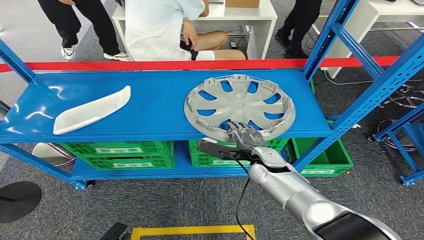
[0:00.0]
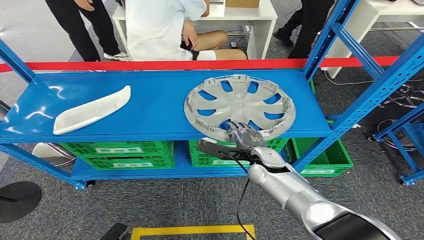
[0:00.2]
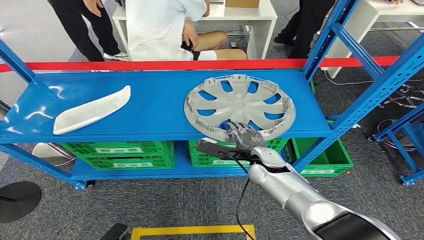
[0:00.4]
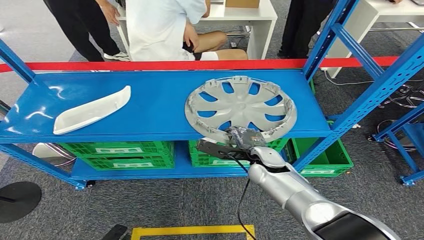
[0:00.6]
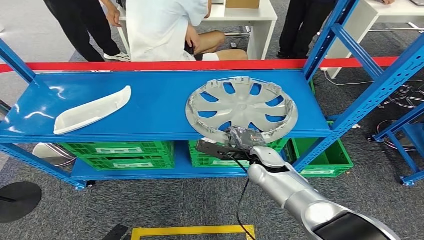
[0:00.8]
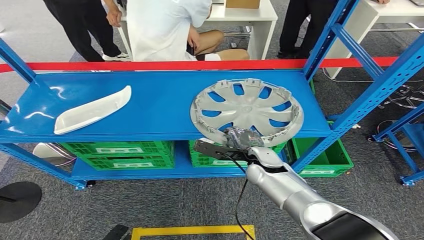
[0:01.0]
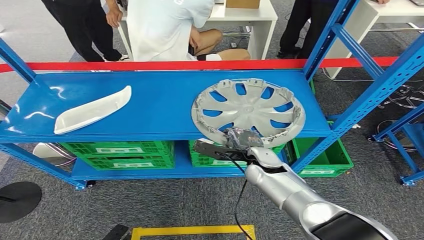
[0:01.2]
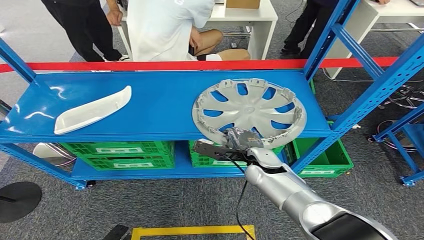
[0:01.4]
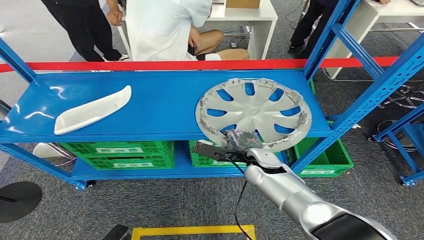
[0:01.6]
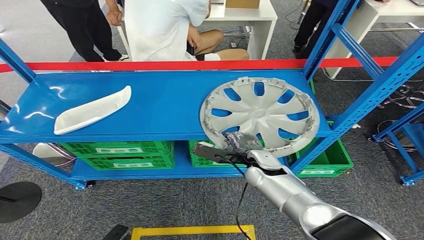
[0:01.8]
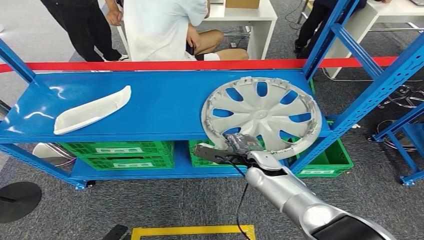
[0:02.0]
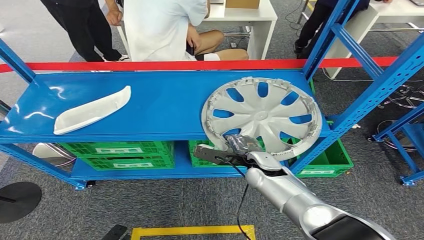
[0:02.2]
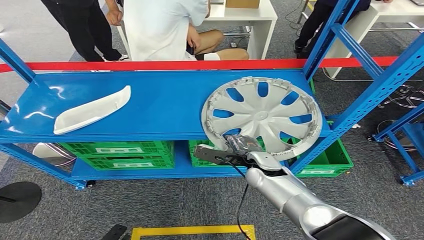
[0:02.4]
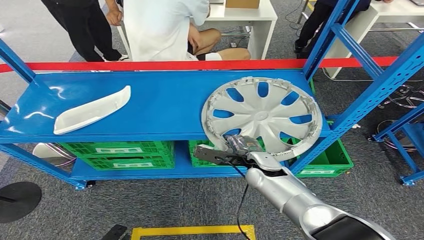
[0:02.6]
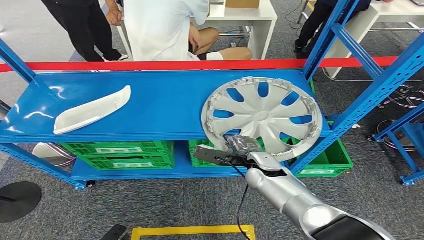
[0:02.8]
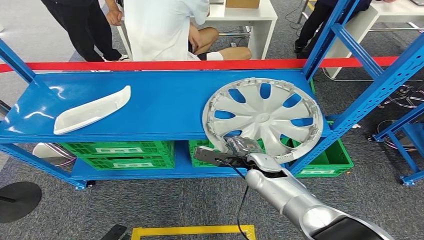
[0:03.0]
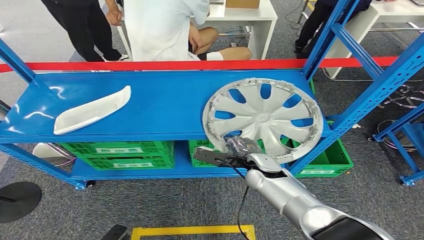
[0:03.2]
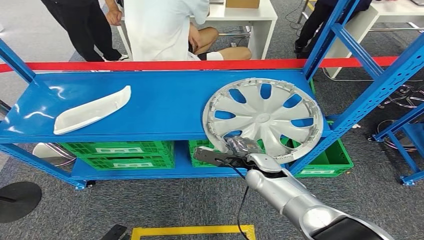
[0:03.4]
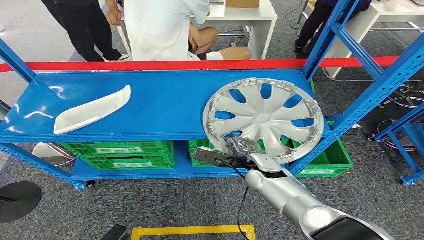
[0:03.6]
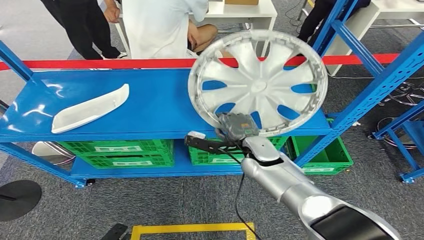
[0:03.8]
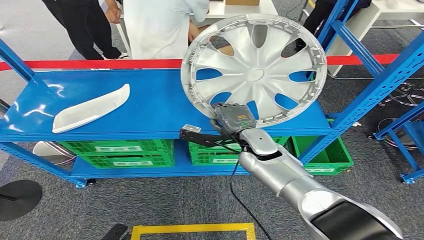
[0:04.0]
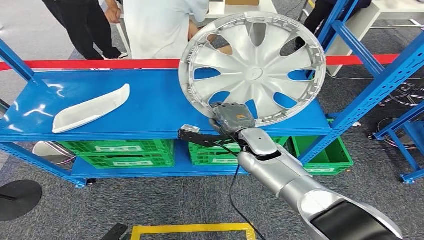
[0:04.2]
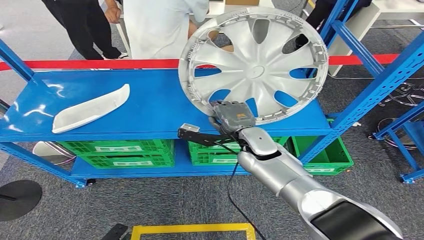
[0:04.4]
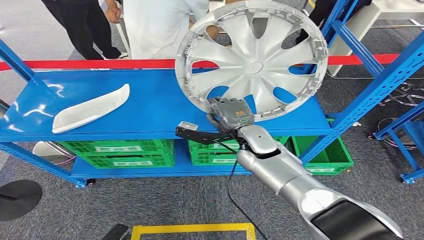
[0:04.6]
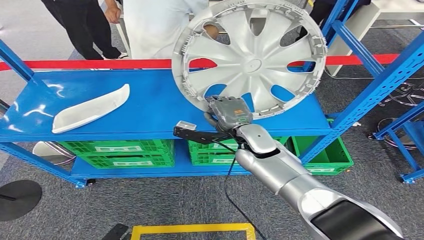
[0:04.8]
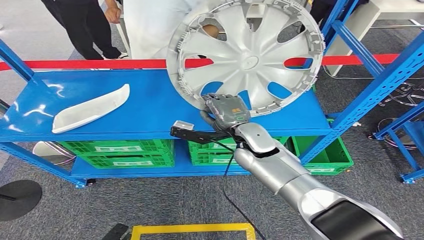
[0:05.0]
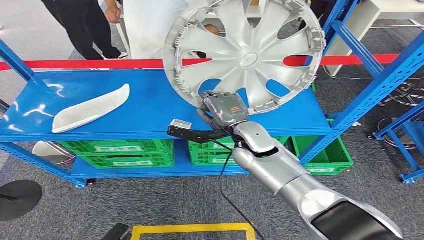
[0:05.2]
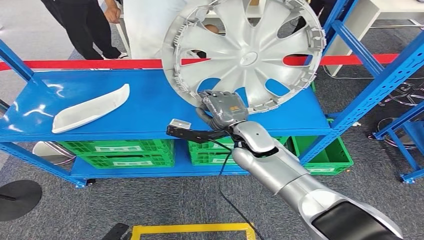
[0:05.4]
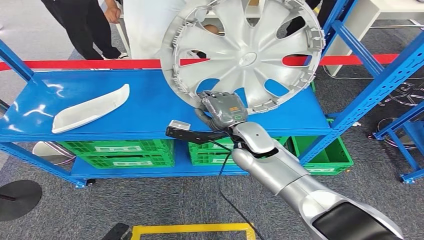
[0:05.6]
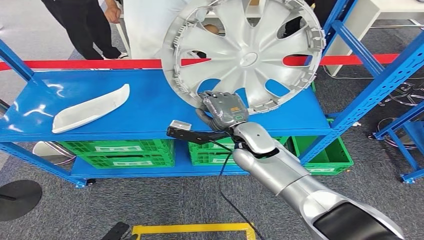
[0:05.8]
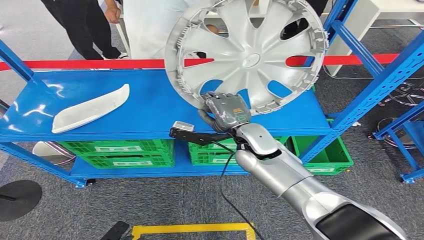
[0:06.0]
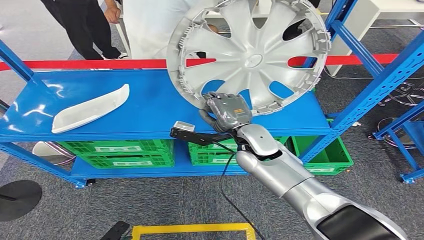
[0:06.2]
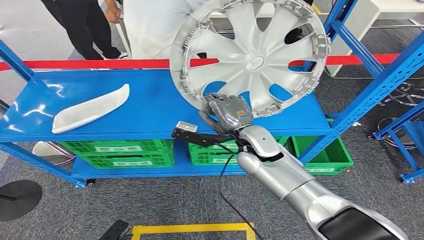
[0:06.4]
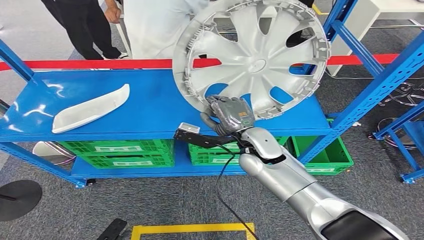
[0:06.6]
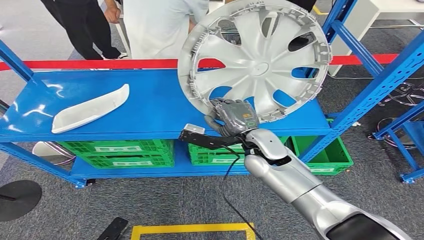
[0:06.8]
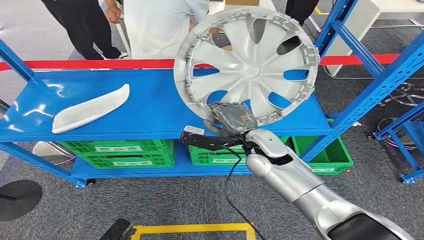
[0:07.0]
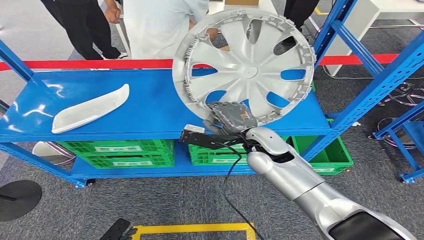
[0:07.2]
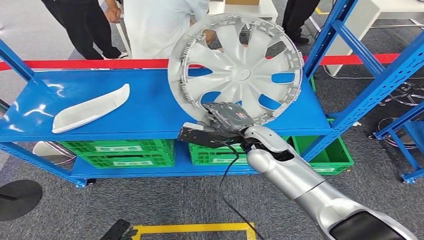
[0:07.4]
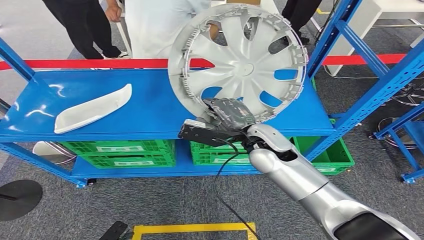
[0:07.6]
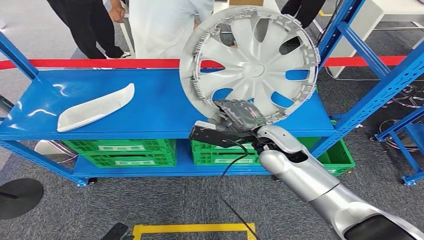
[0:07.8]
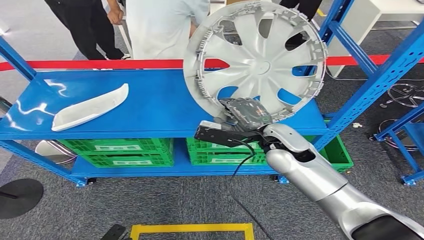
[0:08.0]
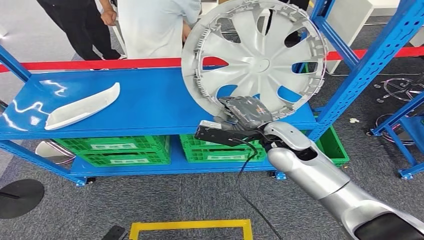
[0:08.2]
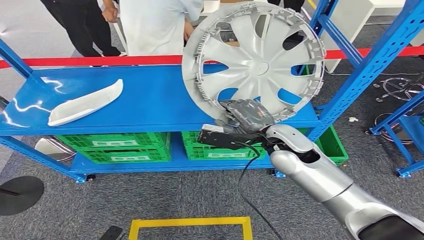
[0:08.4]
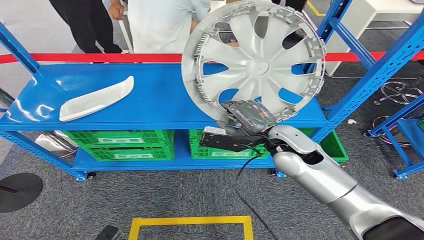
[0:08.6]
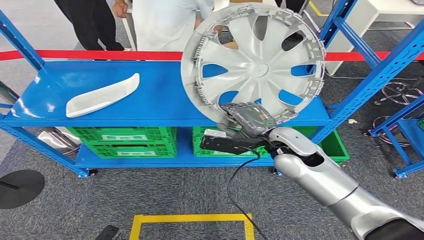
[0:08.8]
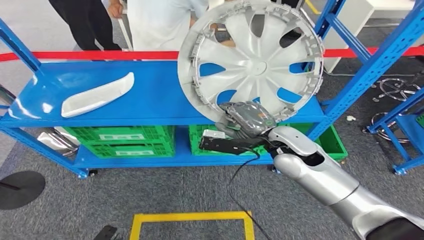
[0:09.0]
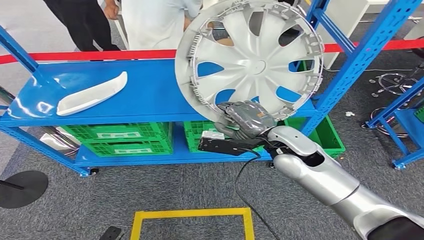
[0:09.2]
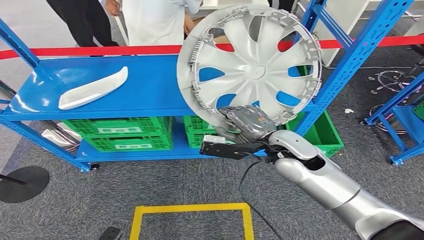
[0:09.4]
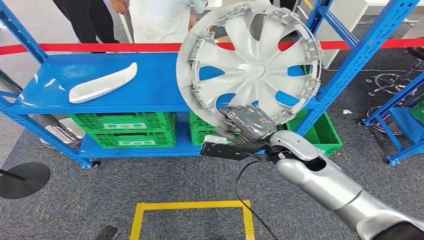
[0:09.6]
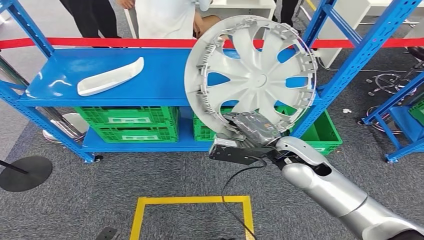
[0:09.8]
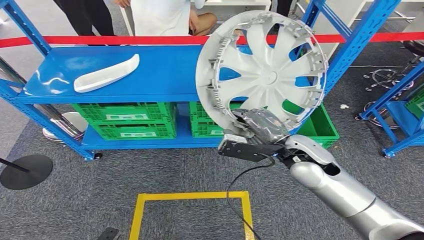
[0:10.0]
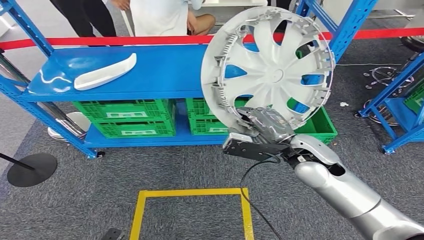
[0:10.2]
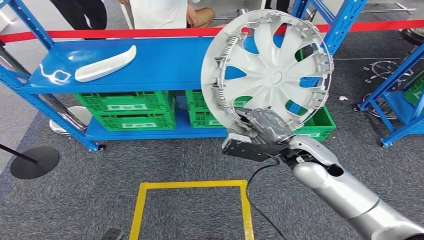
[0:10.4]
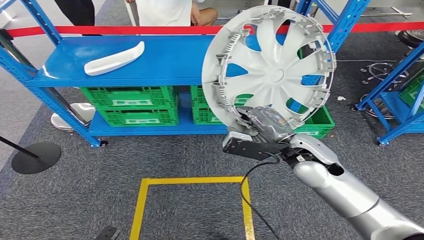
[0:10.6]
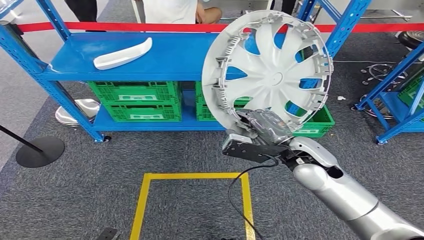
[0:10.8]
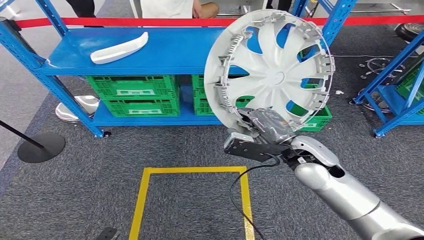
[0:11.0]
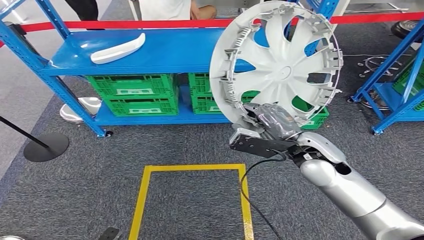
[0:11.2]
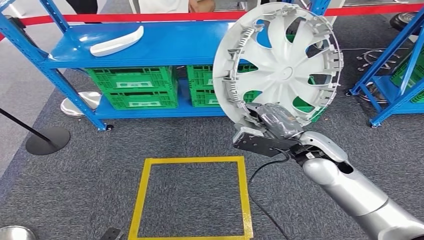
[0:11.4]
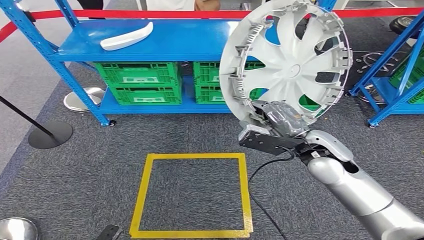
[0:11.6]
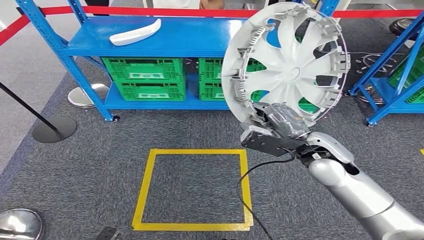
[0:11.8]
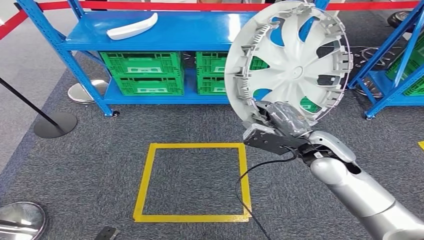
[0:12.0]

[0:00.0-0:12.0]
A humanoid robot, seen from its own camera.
Step, 0:00.0 to 0:05.4: Pick up the small parts from the shelf.
0:00.0 to 0:01.6: Neither hand changes place.
0:01.6 to 0:03.0: The hands make only small movements.
0:04.4 to 0:06.0: The hands make only small movements.

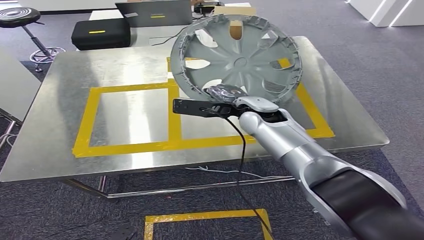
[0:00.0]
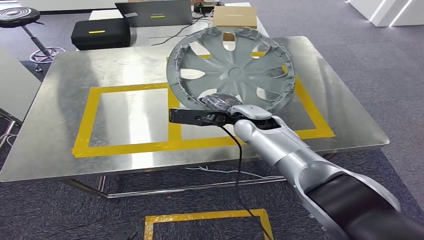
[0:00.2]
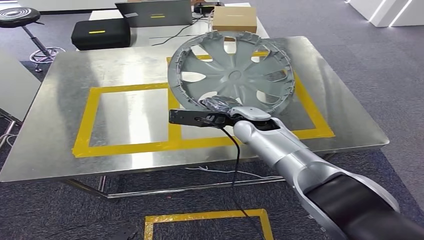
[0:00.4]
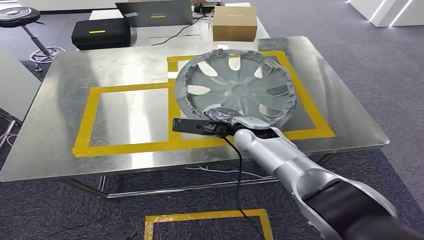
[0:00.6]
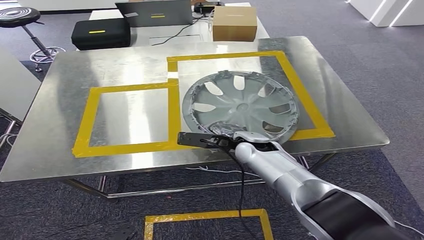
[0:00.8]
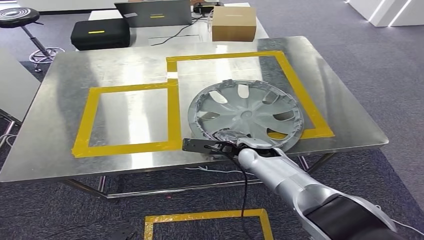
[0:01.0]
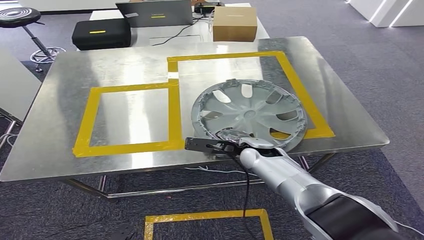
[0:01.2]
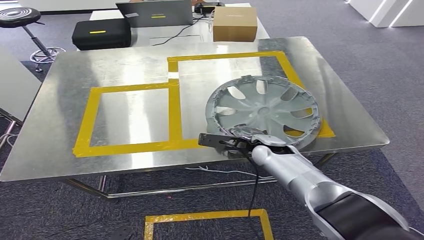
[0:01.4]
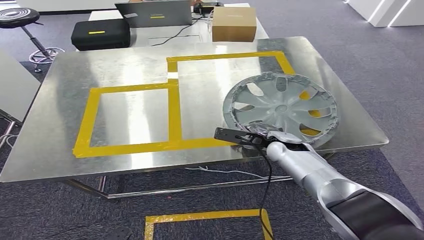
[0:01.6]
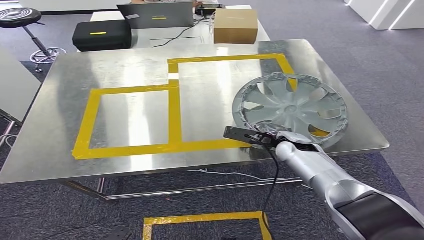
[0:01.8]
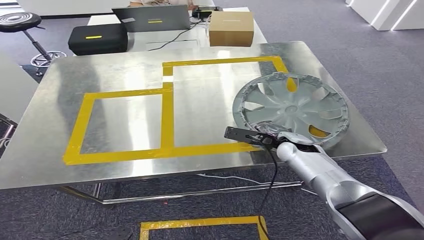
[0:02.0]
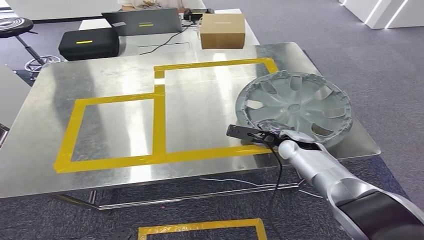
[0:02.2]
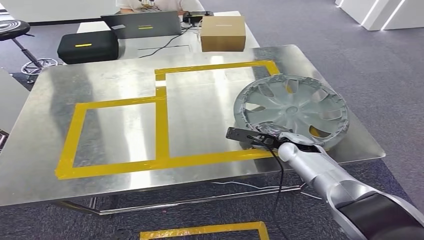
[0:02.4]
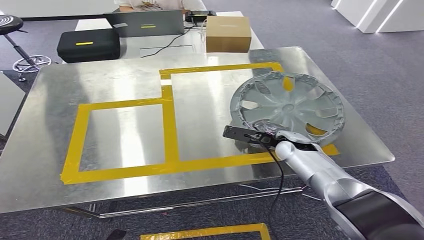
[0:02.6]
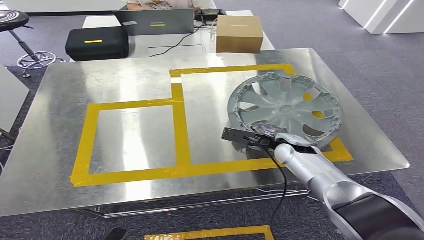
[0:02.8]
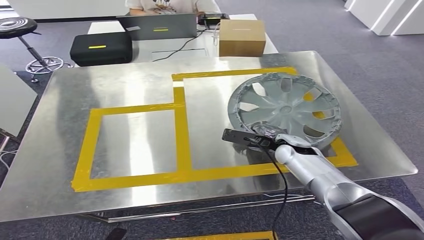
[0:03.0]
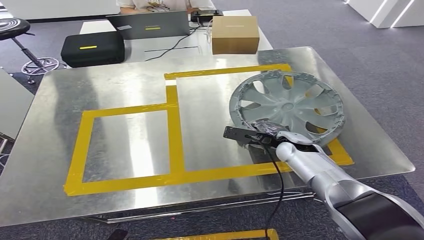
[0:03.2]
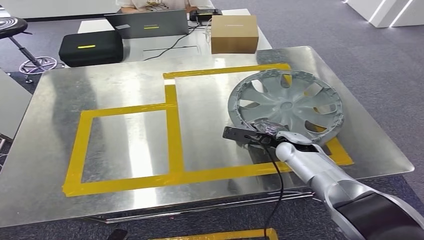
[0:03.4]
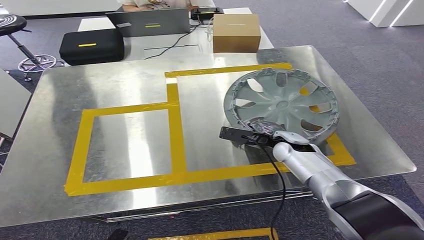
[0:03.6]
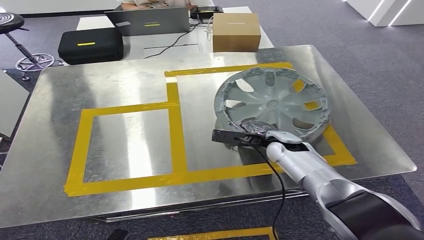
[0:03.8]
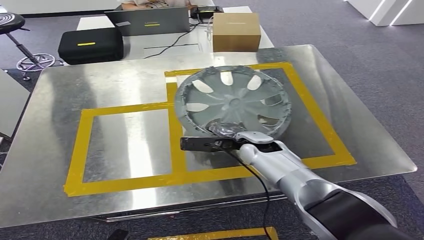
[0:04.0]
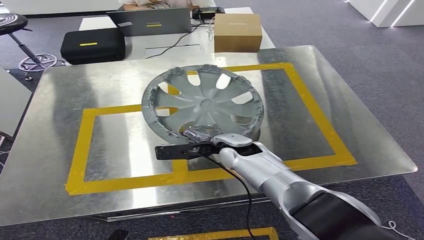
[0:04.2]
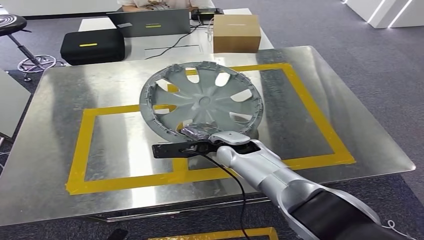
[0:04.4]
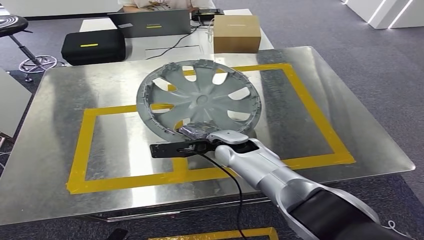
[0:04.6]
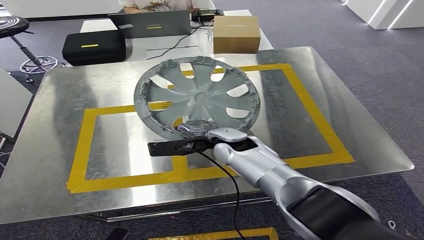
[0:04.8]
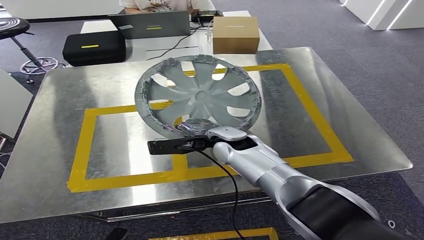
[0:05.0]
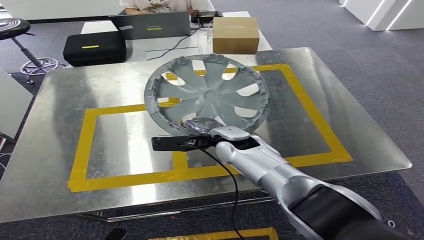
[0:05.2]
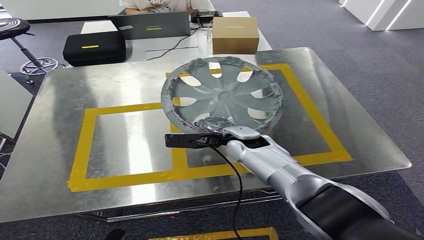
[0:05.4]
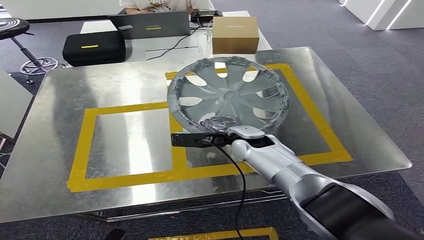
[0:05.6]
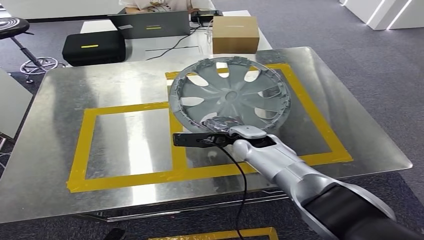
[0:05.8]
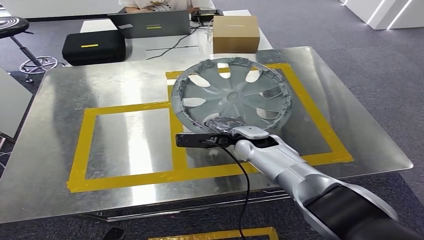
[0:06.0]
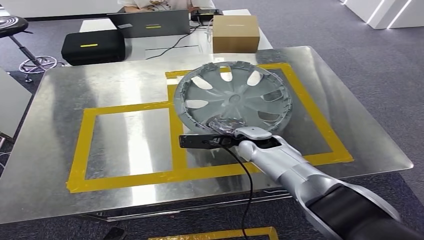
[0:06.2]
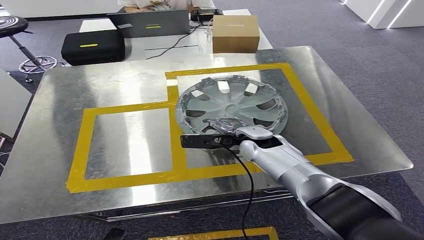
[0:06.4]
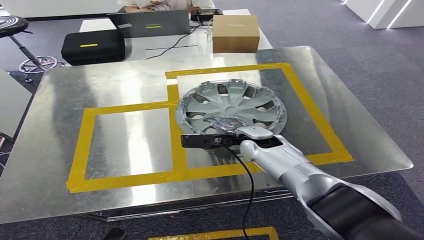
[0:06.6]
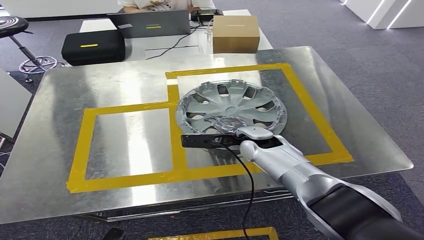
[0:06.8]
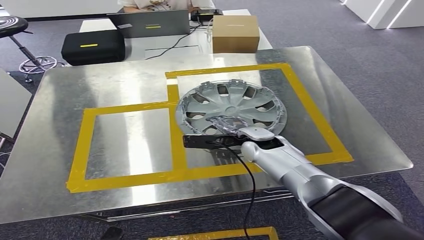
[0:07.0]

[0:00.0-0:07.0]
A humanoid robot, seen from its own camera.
0:00.0 to 0:01.4: The right hand heads downward and backward, covering approximately 15 cm.
0:05.6 to 0:07.0: The hands make only small movements.
